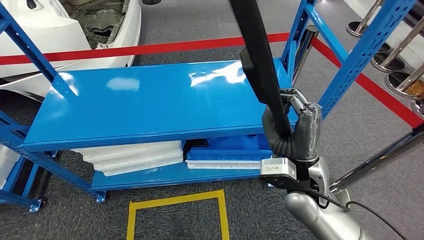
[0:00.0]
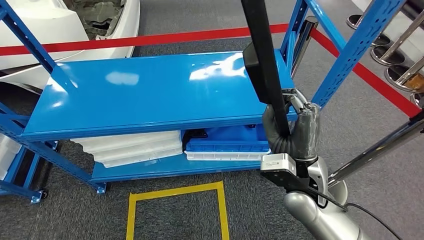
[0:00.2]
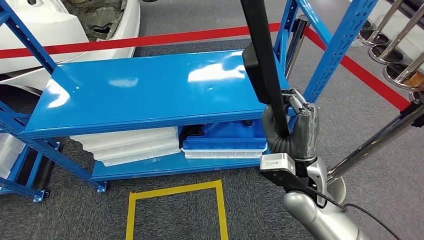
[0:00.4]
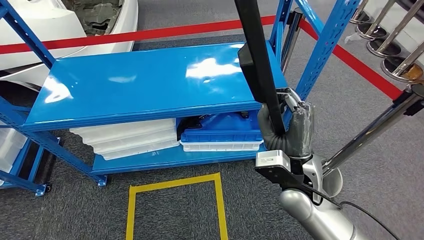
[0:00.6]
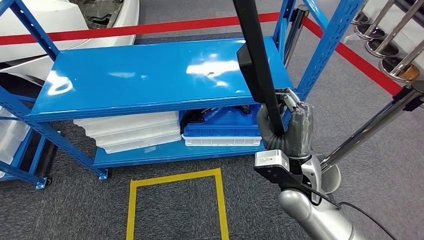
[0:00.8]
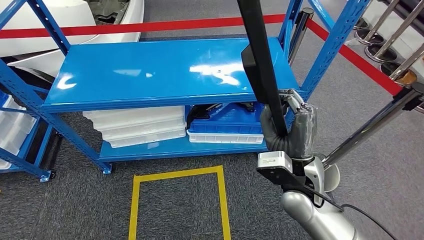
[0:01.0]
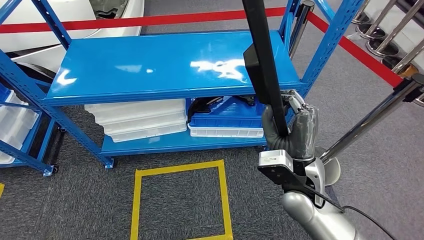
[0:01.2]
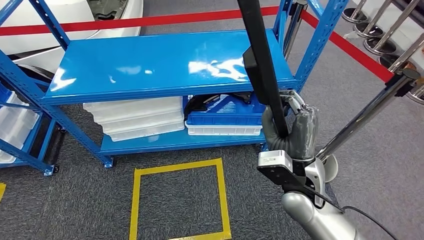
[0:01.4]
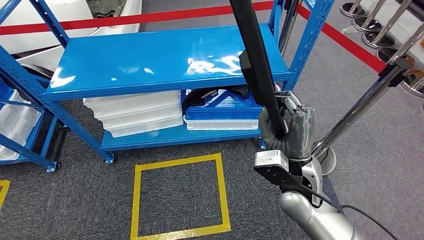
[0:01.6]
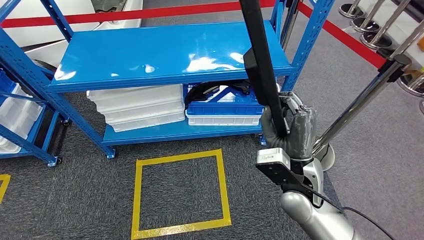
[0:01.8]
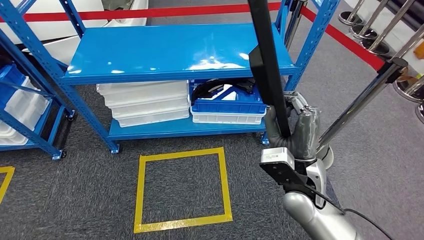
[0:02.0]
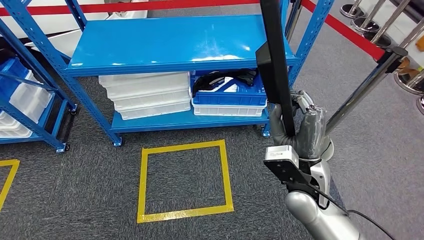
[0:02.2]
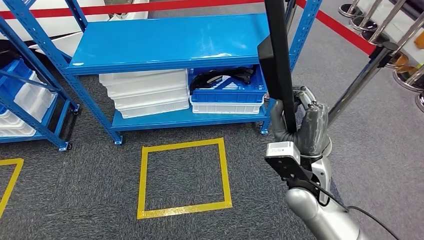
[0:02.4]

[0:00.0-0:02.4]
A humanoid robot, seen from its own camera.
Step, 0:00.0 to 0:02.4: Pick up the large material from the shelf.
